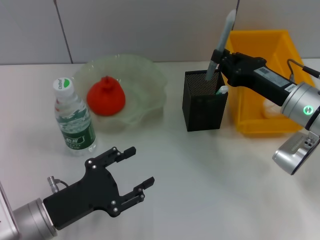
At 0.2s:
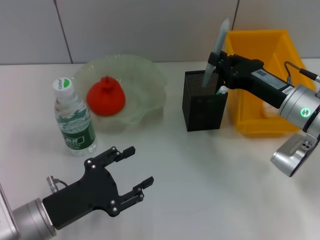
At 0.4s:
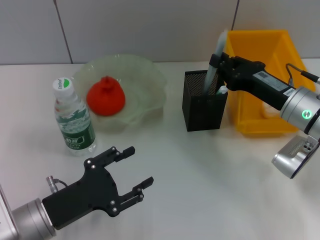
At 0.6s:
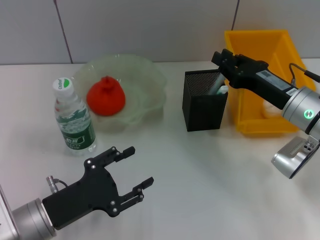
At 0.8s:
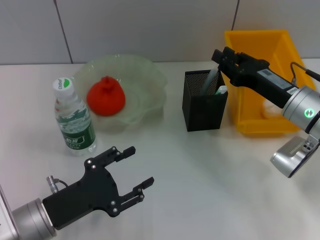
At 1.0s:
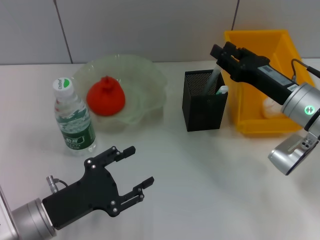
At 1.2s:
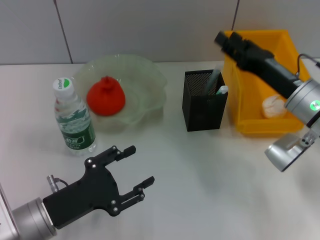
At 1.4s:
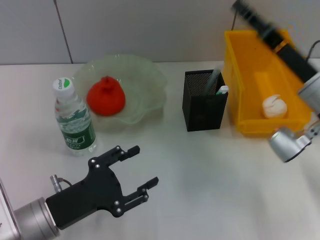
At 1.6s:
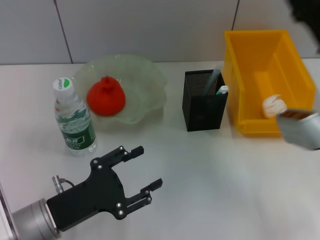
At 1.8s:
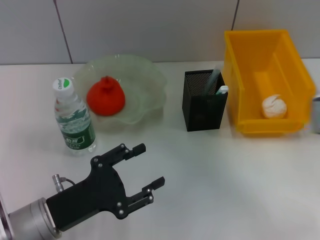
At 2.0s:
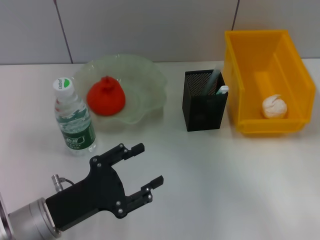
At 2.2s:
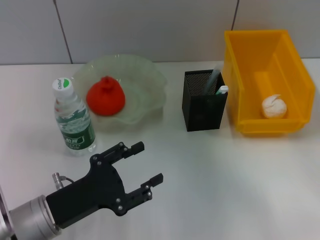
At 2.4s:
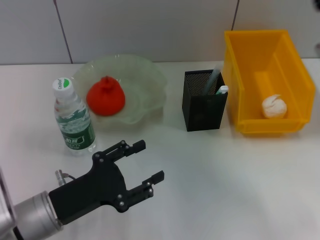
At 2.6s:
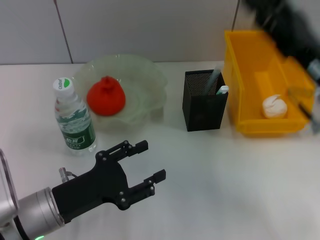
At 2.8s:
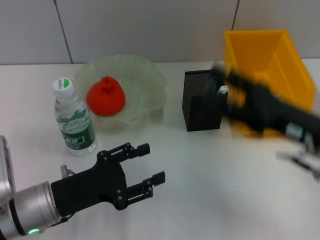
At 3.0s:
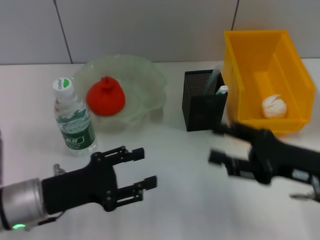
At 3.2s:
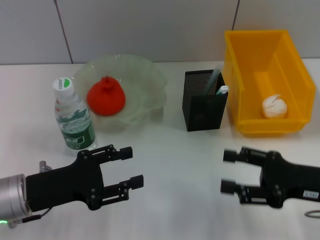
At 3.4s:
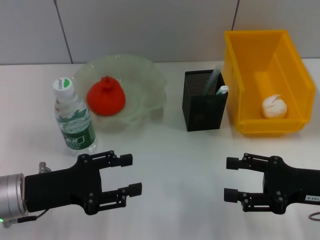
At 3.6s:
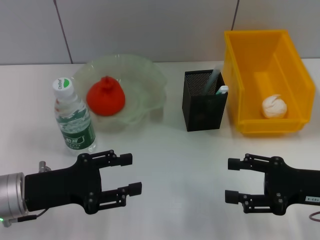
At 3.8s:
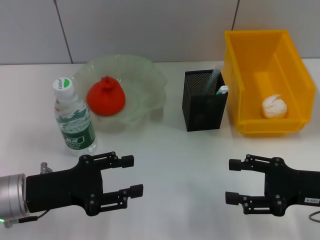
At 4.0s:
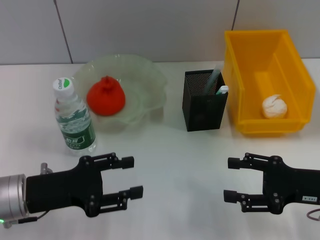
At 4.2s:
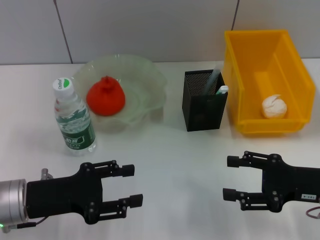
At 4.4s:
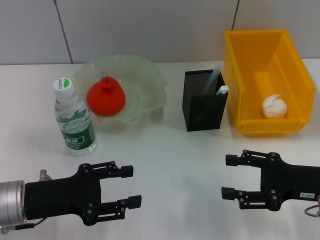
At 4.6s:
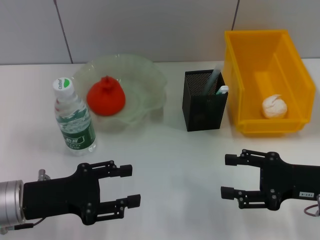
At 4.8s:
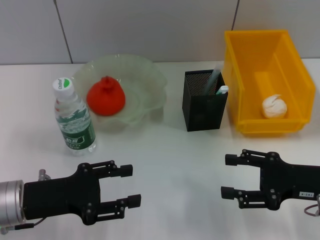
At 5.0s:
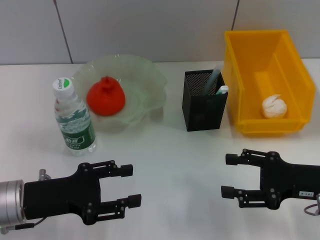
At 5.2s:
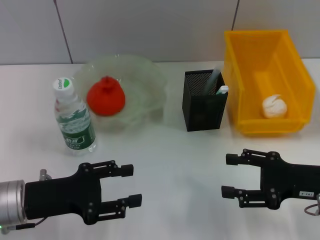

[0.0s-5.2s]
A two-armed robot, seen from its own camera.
0.0s to 1.8s: The right gripper heads upward, covering approximately 5 cm, and opens.
1.8s to 3.4s: The left gripper changes place by some 5 cm. The right gripper is displaced downward and backward by roughly 10 cm, and opens.
3.4s to 5.2s: There are only small adjustments of the grippers.

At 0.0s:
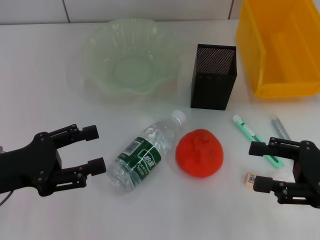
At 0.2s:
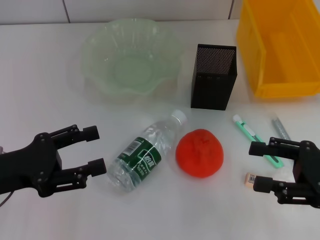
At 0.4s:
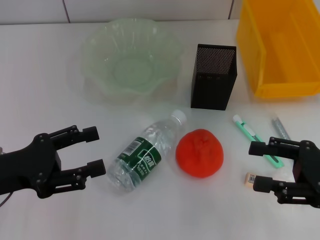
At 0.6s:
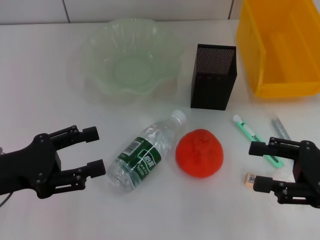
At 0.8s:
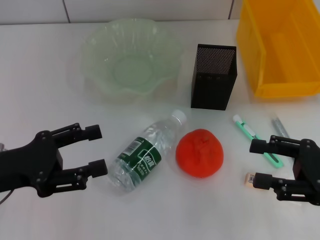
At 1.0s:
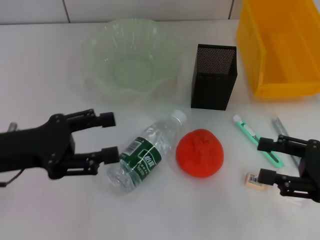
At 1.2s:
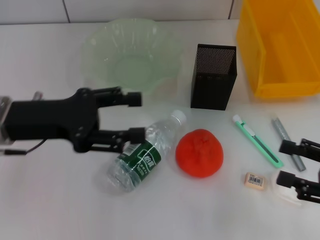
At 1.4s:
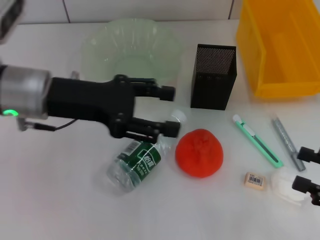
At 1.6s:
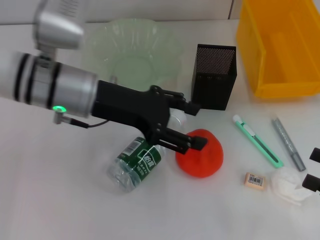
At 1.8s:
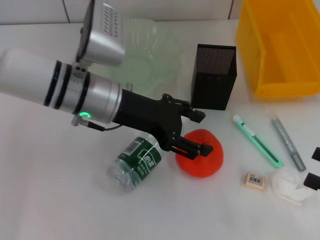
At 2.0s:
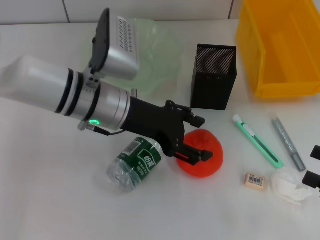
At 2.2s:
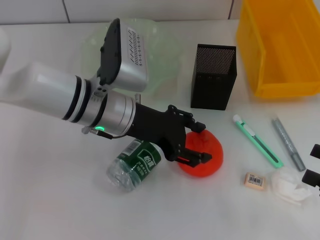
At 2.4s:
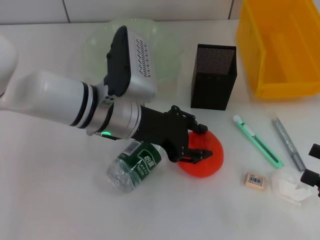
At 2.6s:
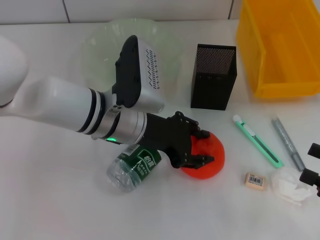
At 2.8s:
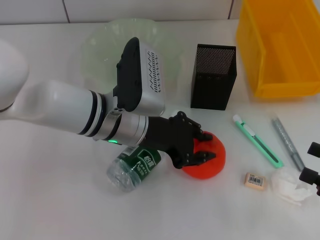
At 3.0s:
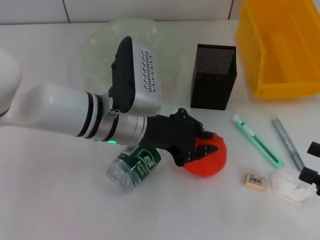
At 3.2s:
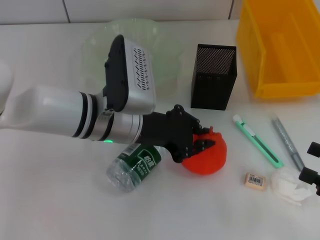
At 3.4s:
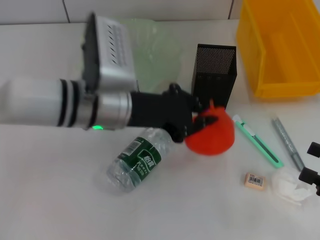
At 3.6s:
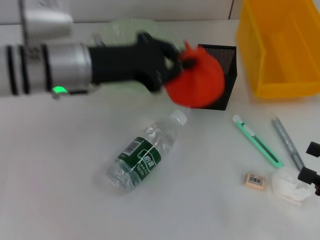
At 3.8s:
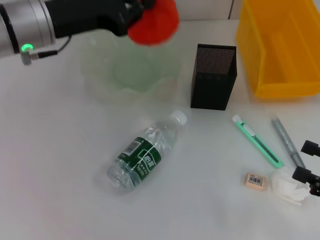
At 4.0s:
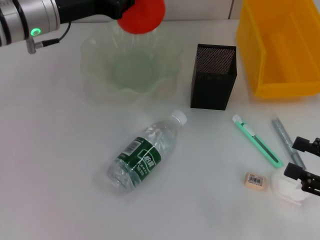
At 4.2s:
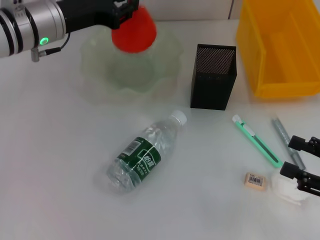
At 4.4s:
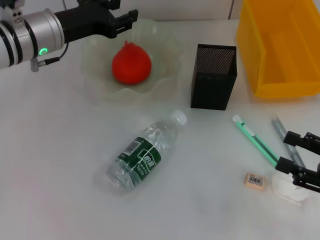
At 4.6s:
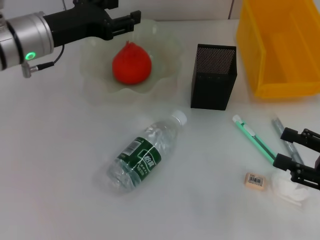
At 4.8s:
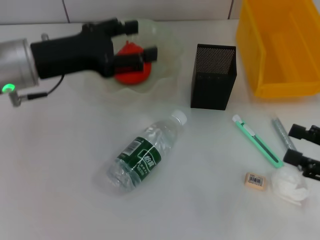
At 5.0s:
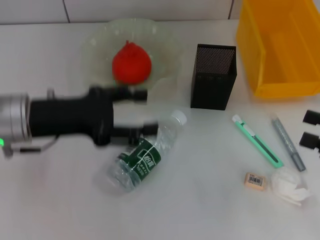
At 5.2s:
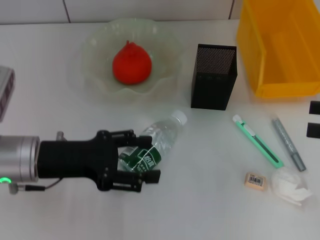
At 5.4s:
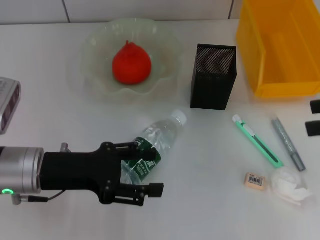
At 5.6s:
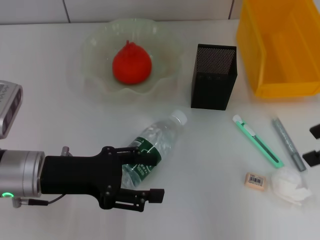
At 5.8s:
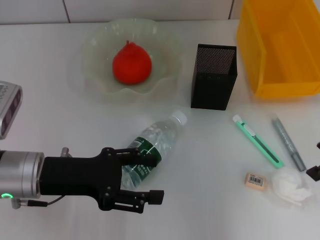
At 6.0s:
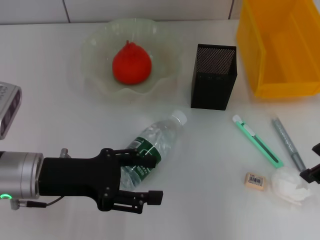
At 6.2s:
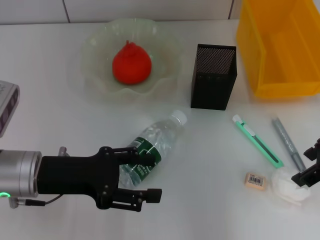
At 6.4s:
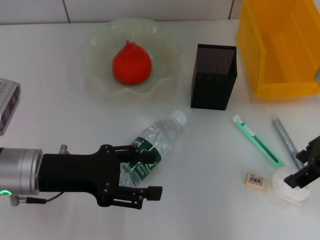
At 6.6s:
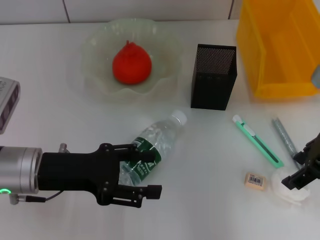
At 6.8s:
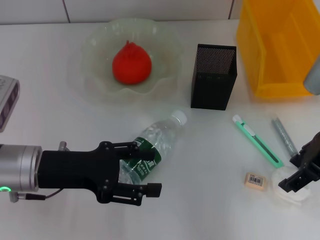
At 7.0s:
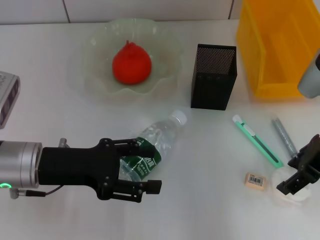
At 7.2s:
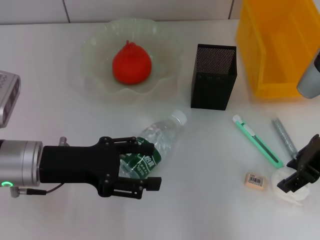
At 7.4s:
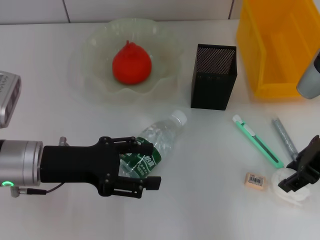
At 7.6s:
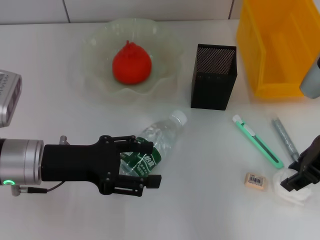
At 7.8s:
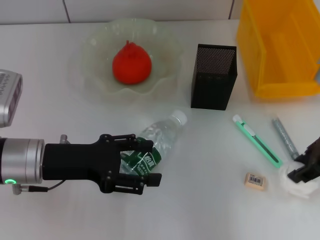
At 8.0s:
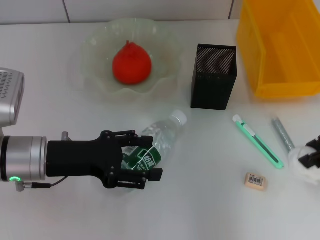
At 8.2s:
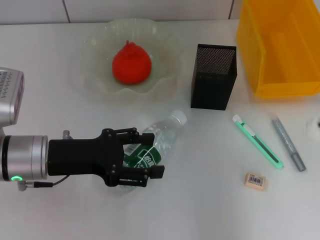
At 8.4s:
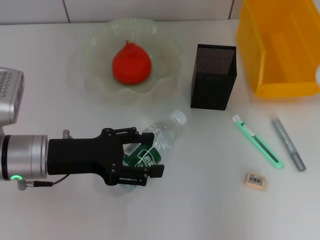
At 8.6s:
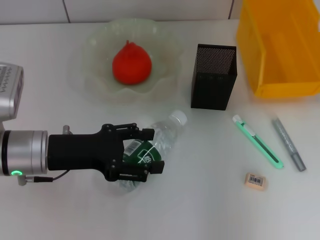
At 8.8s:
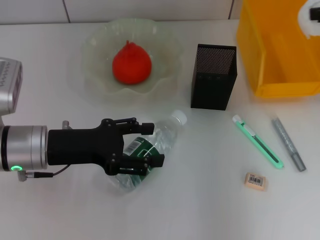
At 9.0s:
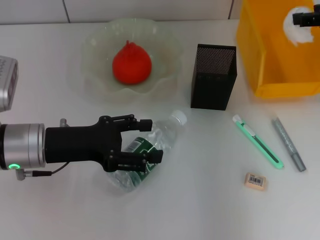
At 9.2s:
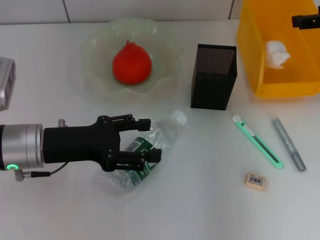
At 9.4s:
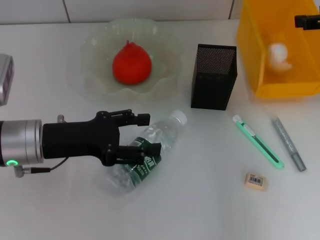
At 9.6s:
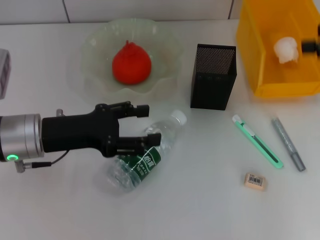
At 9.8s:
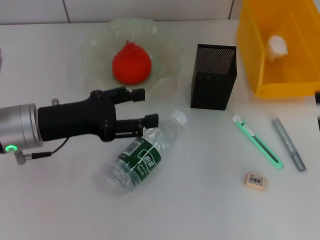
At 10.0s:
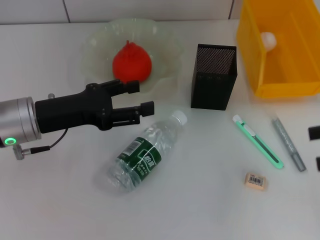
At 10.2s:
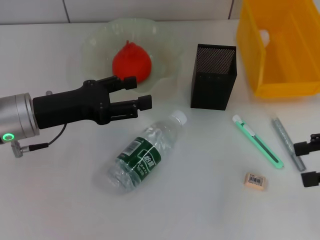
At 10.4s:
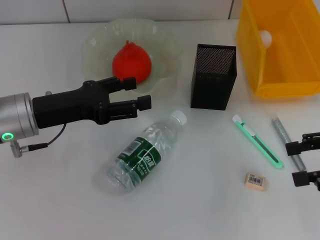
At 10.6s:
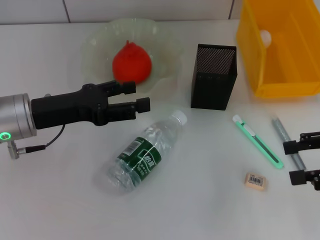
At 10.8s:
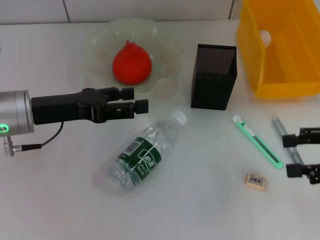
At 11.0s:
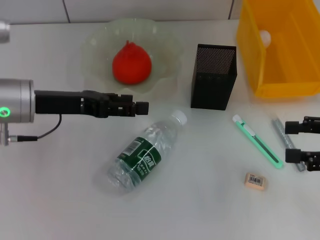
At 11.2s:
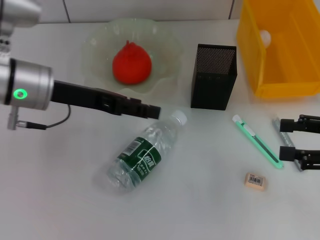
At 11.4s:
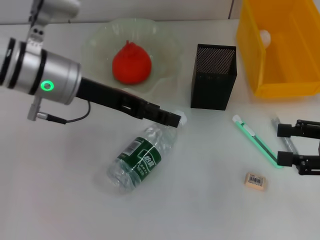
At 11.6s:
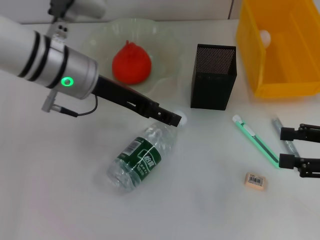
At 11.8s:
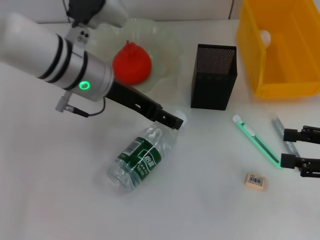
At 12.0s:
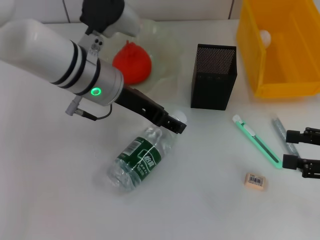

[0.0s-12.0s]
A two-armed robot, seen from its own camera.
Step, 0.0s to 2.8s: Grab the orange with the left hand.
Step, 3.0s to 4.4s: Place the orange into the fruit bowl with the left hand.
Step, 4.6s to 7.4s: Grab the paper ball with the right hand.
Step, 7.6s to 9.4s: Place the paper ball into the trash can with the right hand.
0.0s to 1.6s: The right gripper travels to the right and backward by some 10 cm, while the left gripper travels to the right, forward and upward by about 20 cm.
1.6s to 3.0s: The left gripper shifts approximately 5 cm to the right, and closes.
3.0s to 4.4s: The left gripper travels to the left and forward by roughly 15 cm.
4.4s to 6.0s: The left gripper moves backward, some 15 cm, and opens its fingers; the right gripper heads upward, forward and to the left, covering some 20 cm.
6.0s to 7.6s: The right gripper changes place by some 5 cm.
7.6s to 9.0s: The right gripper heads forward, upward and to the right, covering approximately 10 cm.
9.0s to 10.4s: The right gripper goes some 15 cm backward and downward, and opens.
10.4s to 12.0s: The left gripper is displaced to the right and forward by some 15 cm, while the right gripper shifts by some 5 cm.

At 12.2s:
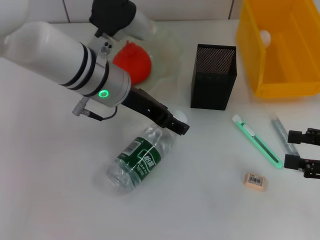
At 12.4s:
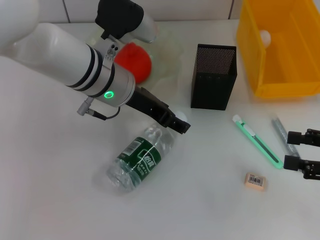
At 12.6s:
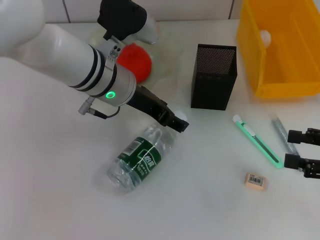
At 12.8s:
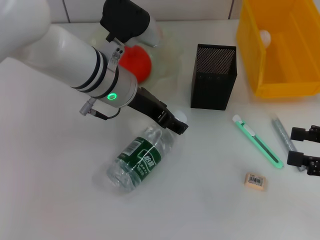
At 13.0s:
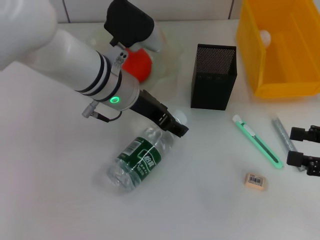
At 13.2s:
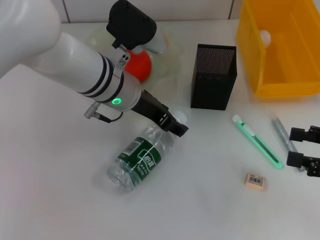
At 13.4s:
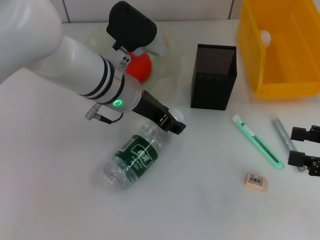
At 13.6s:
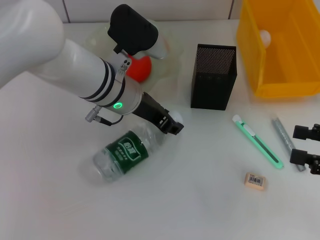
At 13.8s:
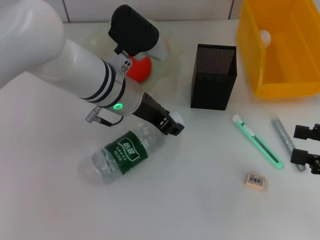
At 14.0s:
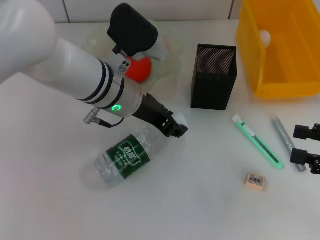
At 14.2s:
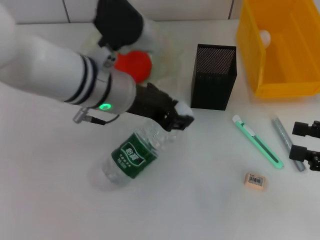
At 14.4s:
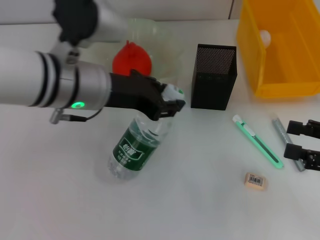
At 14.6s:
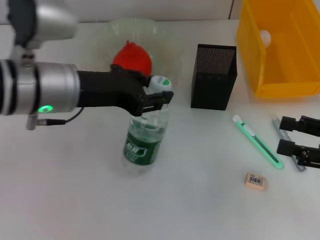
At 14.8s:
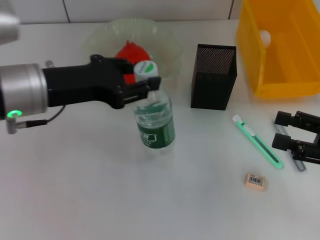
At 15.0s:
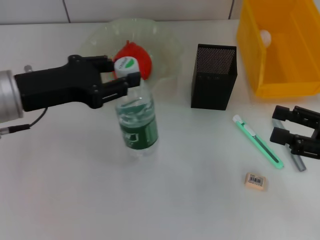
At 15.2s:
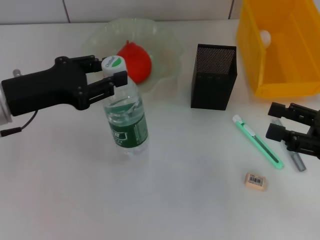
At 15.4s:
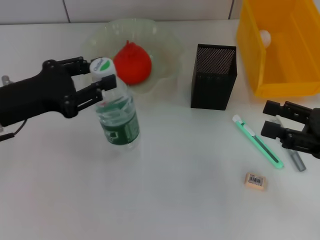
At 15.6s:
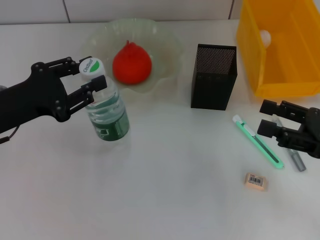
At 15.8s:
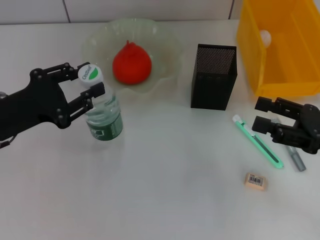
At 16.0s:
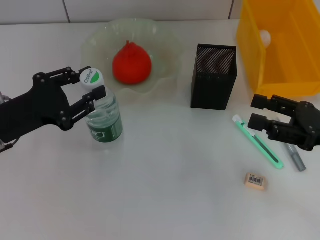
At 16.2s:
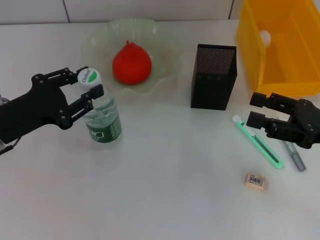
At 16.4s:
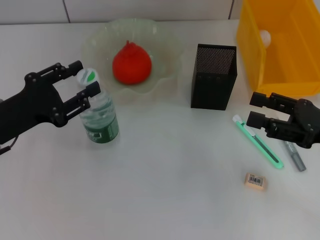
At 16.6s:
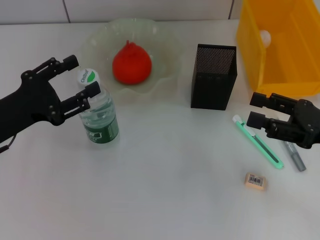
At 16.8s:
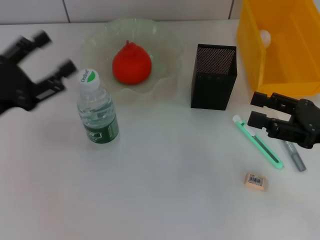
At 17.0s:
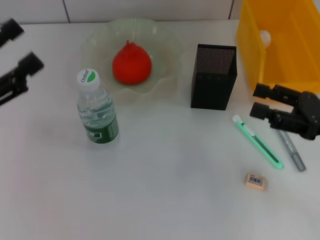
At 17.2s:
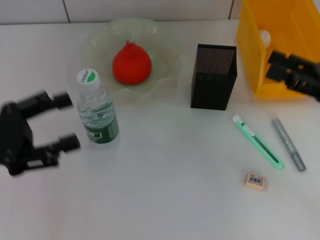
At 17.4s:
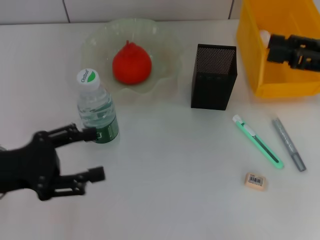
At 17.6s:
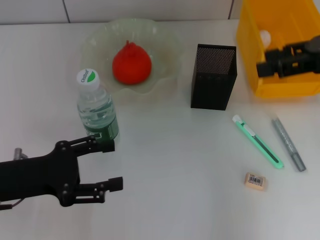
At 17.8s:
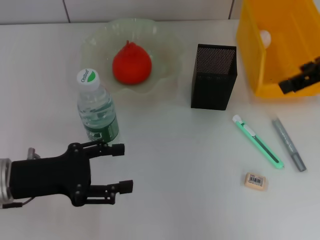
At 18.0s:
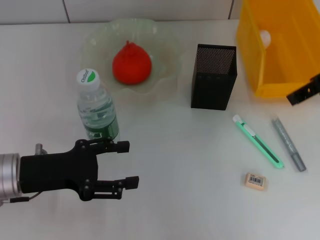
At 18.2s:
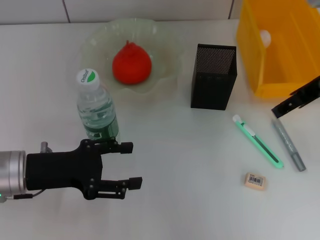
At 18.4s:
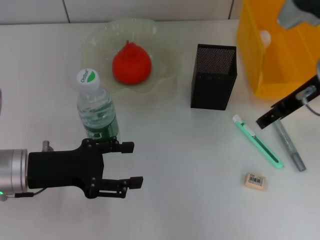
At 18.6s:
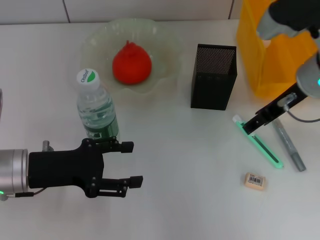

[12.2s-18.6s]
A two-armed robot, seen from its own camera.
Step, 14.0s to 16.4s: Place the water bottle on the table with the left hand.
12.2s to 13.8s: The left gripper closes.
13.8s to 15.4s: The left gripper goes approximately 20 cm to the left and backward.
15.4s to 17.0s: The left gripper moves to the left, about 5 cm, and opens up.
17.0s to 18.6s: The right gripper travels to the left, forward and upward by some 15 cm, while the left gripper shifts roughly 10 cm to the right and downward.
